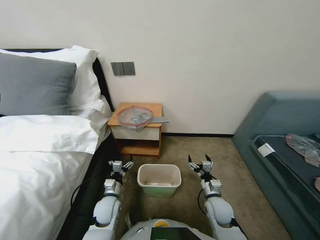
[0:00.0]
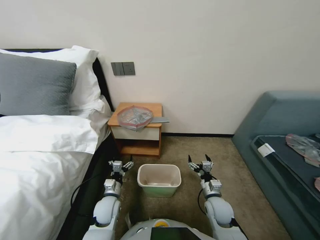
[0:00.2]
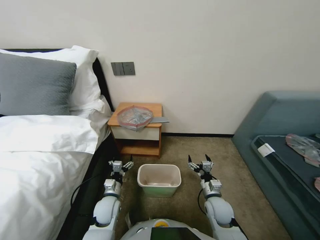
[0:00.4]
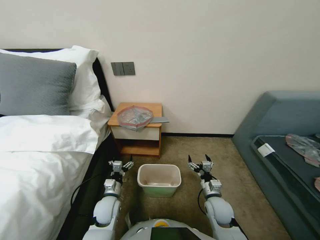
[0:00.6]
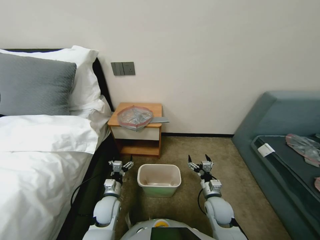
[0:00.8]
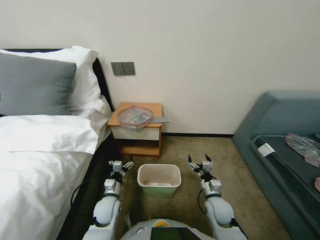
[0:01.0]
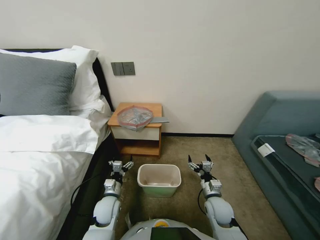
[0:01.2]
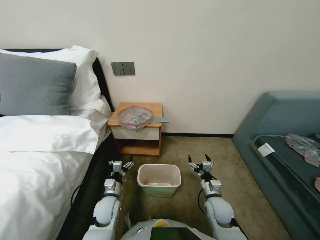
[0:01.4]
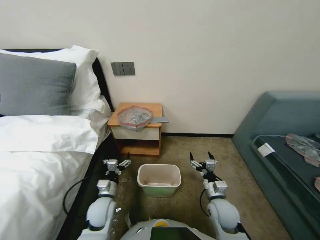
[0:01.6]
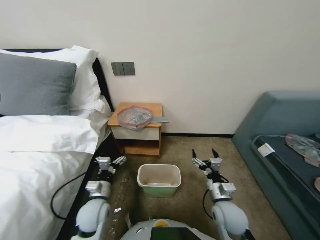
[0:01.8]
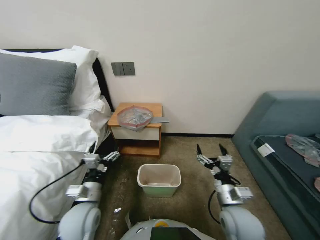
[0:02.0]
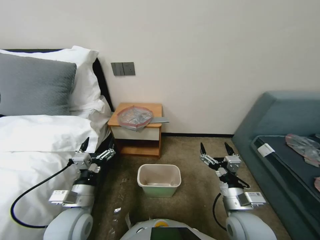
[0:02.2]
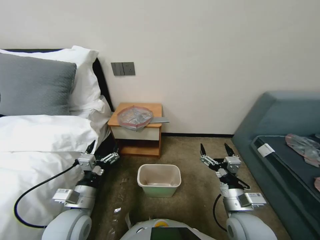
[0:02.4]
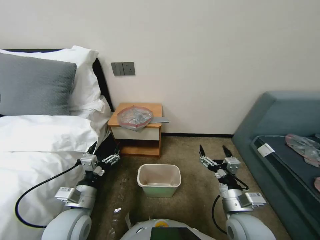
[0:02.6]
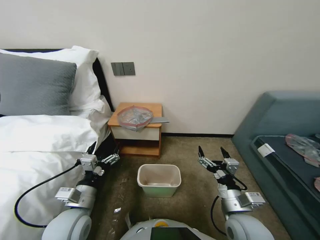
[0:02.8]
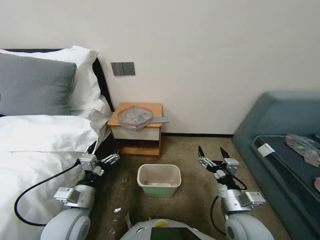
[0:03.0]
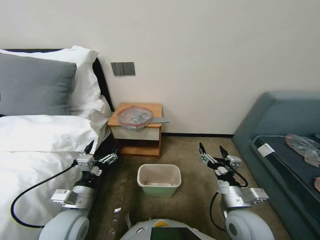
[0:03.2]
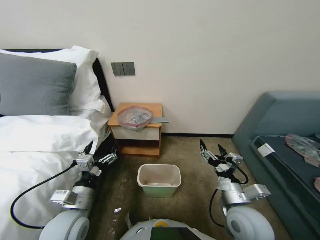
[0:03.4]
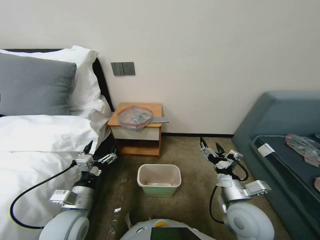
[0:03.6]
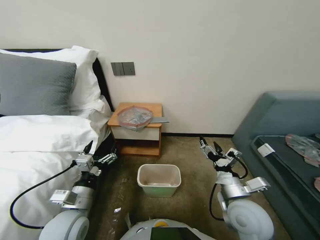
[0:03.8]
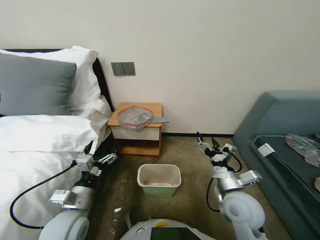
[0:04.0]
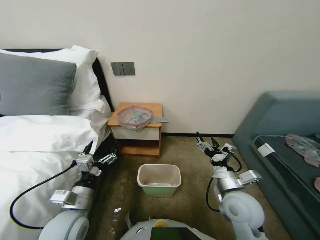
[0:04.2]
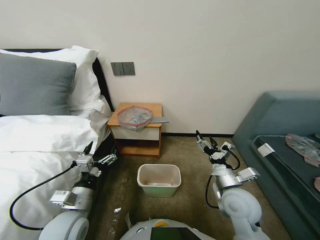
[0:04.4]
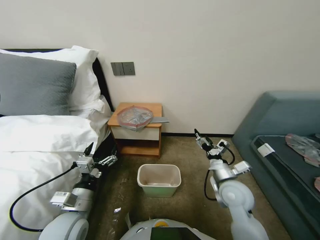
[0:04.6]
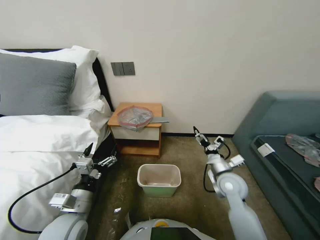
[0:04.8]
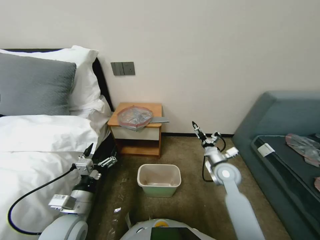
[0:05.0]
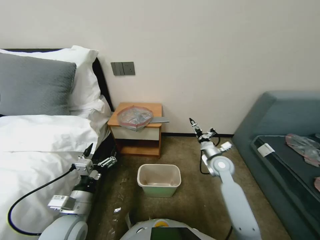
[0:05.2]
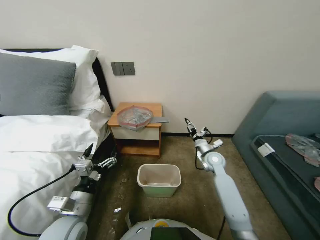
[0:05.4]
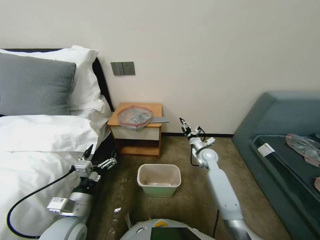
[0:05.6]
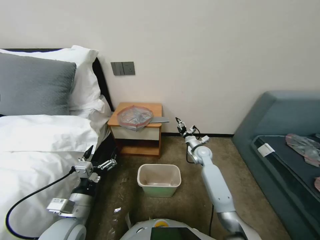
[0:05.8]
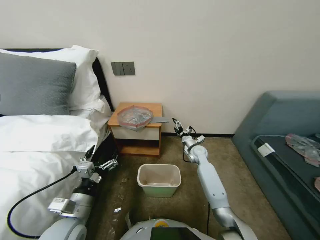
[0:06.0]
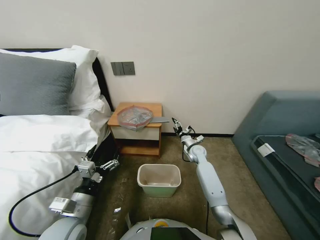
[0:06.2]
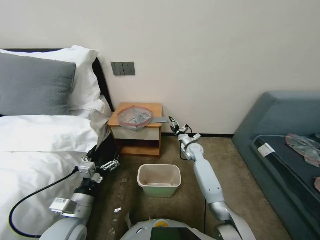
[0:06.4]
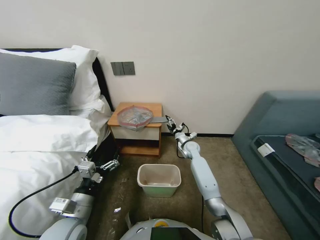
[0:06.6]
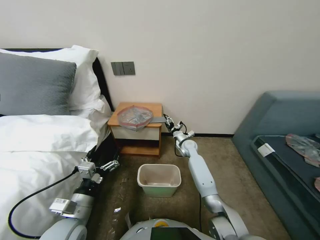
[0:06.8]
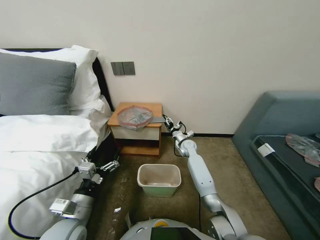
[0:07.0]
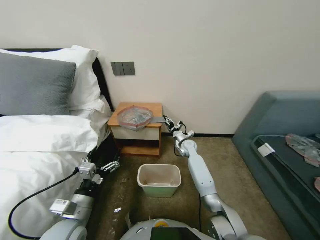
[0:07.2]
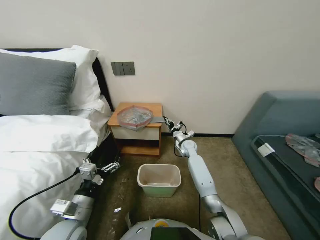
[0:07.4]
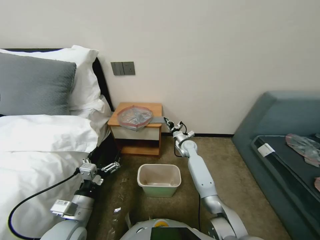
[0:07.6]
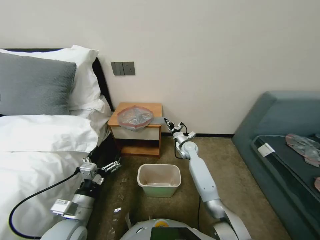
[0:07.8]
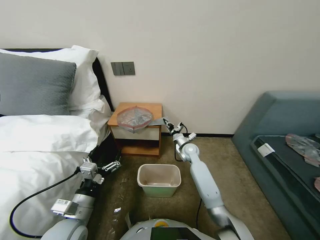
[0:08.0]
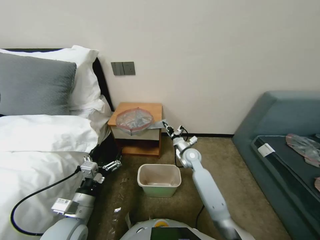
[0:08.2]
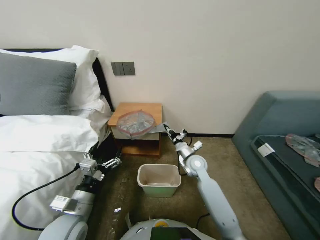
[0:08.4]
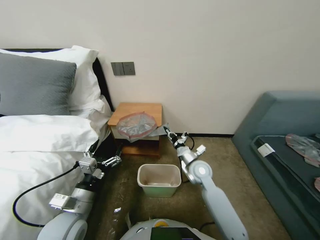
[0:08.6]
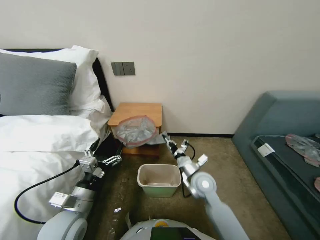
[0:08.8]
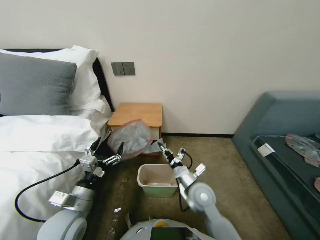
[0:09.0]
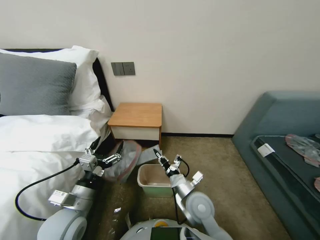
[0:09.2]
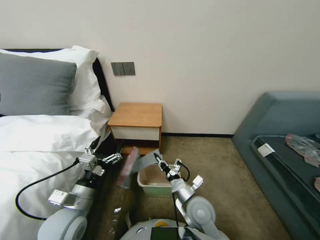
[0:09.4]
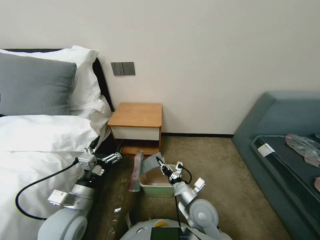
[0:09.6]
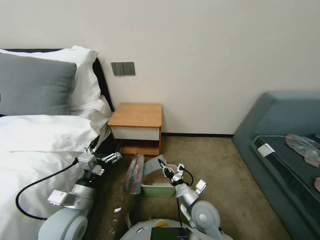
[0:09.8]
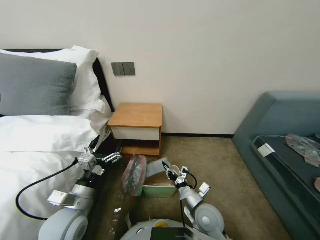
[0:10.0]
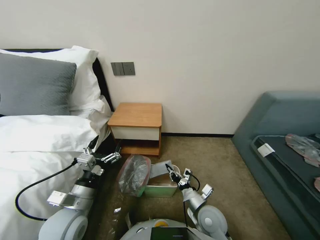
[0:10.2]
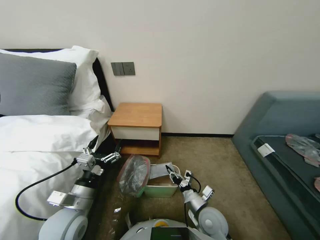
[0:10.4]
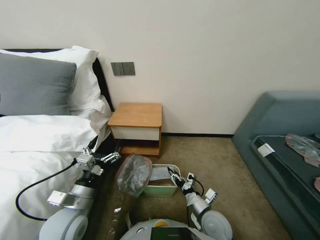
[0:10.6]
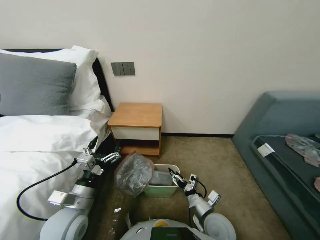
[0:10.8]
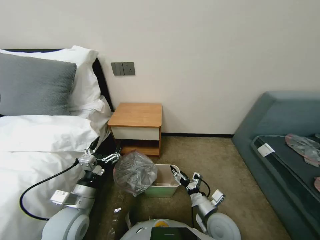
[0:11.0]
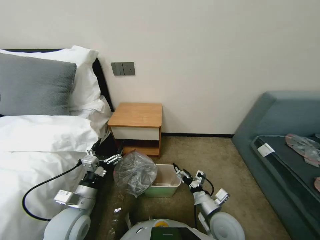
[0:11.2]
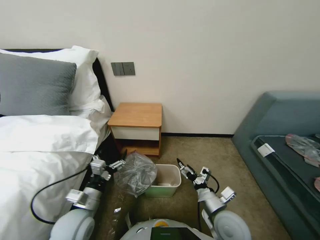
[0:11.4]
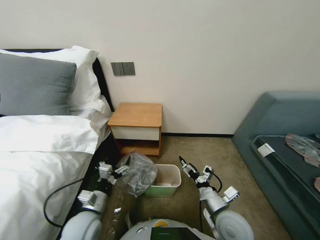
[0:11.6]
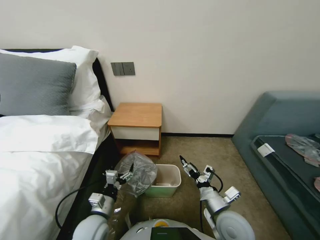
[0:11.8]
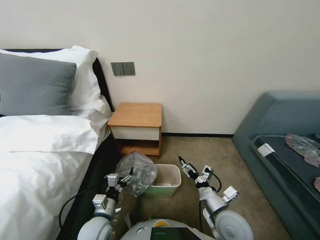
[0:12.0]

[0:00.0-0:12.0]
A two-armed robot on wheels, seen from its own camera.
Task of the whole recording: Pick up the garbage bag from the table and place it over the trash can.
0:01.6 to 0:03.0: The grippers both shift upward and backward by about 15 cm.
0:03.0 to 0:04.4: The right gripper heads forward, covering some 5 cm.
0:04.4 to 0:06.0: The right gripper shifts approximately 25 cm forward.
0:06.0 to 0:07.6: The right gripper is displaced to the left by approximately 5 cm, and closes up.
0:07.6 to 0:09.0: The right gripper heads backward, covering about 25 cm.
0:09.0 to 0:10.4: The right gripper goes about 10 cm backward and downward.
0:10.4 to 0:12.0: The right gripper travels upward by roughly 5 cm, and opens. The left gripper travels downward by roughly 10 cm.

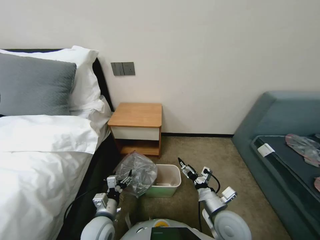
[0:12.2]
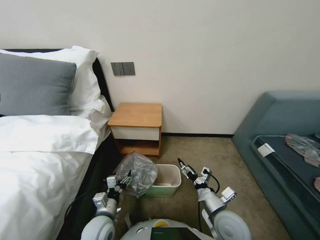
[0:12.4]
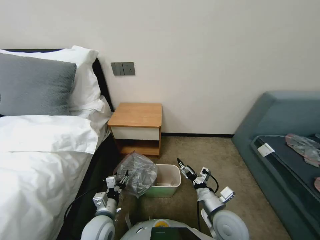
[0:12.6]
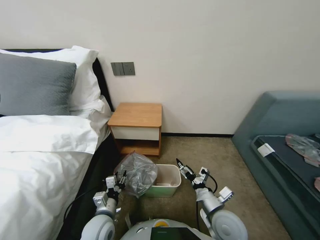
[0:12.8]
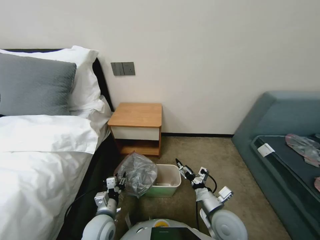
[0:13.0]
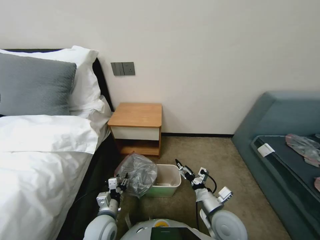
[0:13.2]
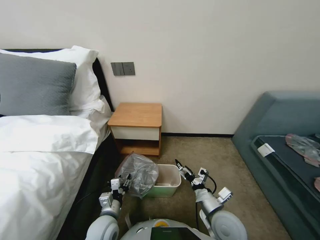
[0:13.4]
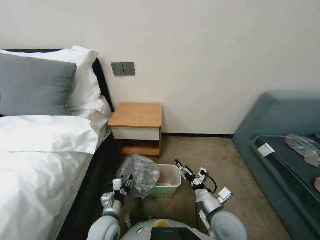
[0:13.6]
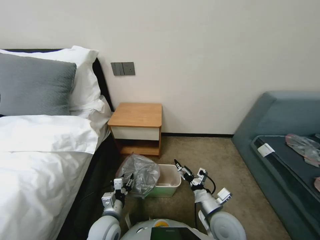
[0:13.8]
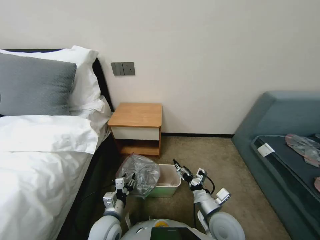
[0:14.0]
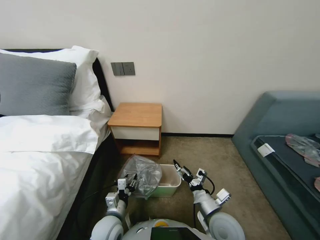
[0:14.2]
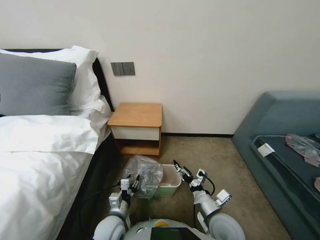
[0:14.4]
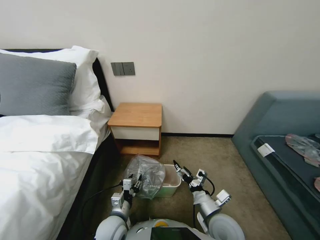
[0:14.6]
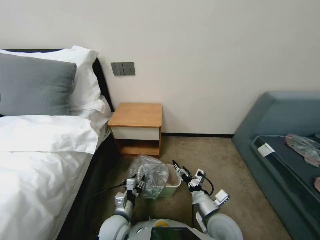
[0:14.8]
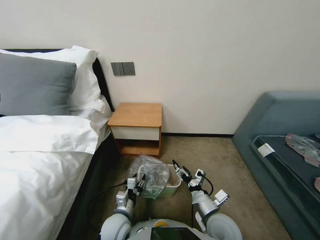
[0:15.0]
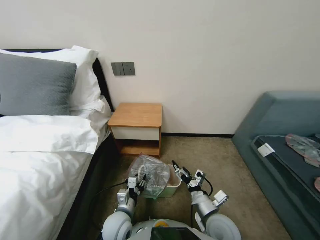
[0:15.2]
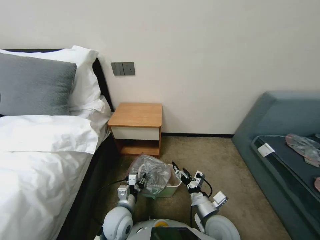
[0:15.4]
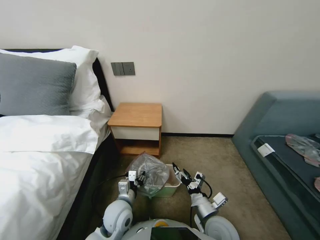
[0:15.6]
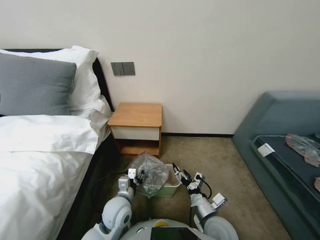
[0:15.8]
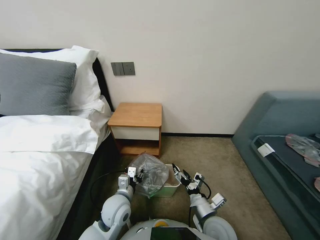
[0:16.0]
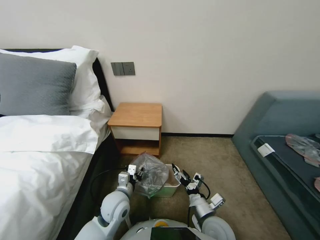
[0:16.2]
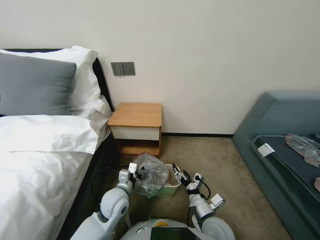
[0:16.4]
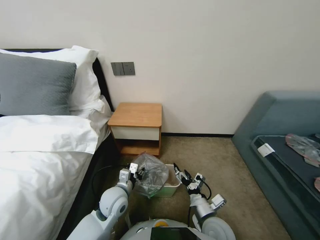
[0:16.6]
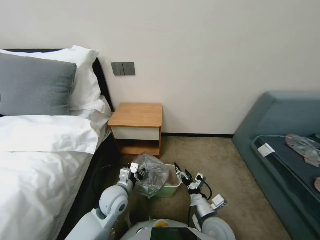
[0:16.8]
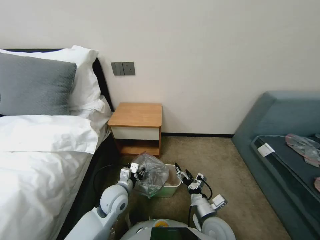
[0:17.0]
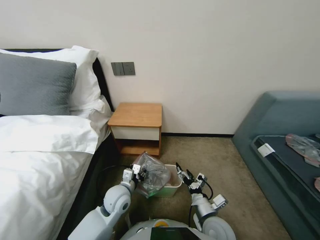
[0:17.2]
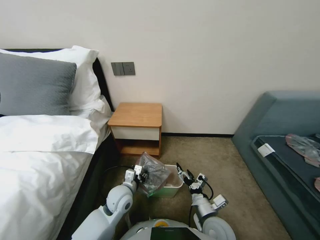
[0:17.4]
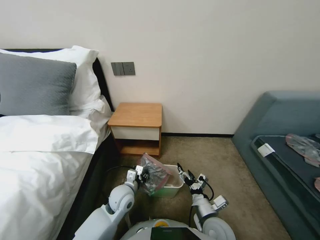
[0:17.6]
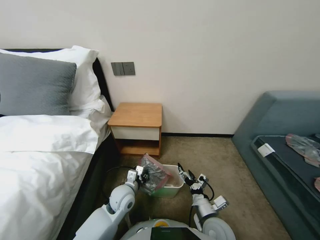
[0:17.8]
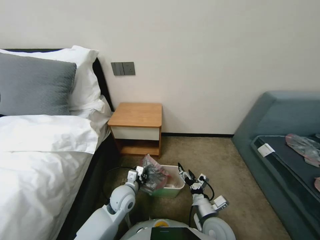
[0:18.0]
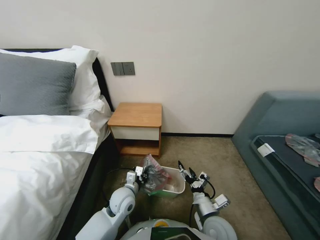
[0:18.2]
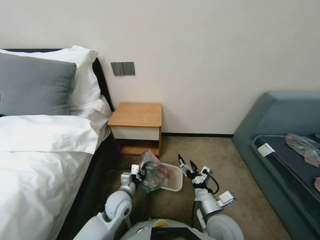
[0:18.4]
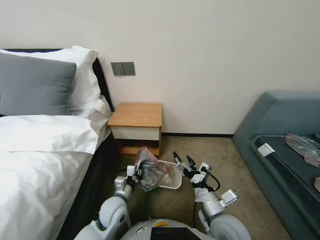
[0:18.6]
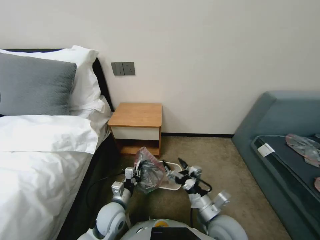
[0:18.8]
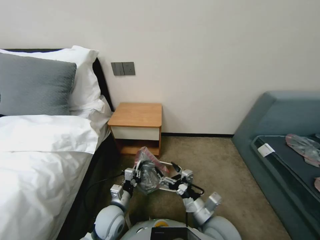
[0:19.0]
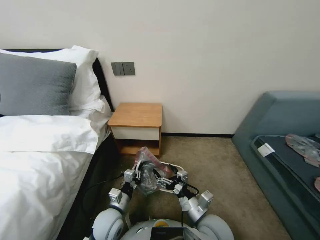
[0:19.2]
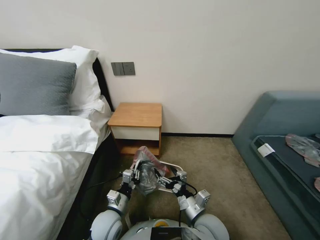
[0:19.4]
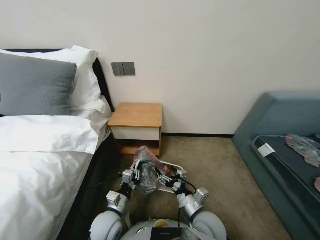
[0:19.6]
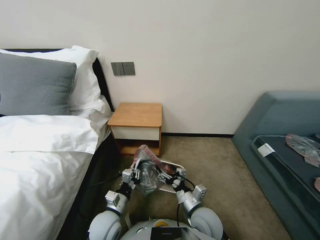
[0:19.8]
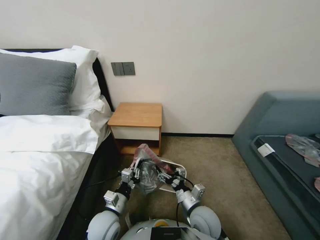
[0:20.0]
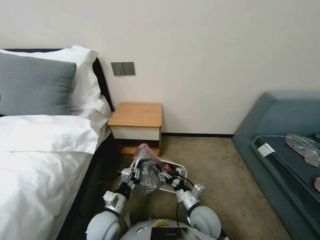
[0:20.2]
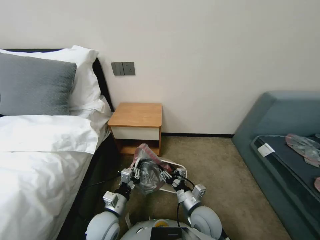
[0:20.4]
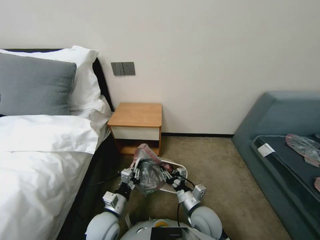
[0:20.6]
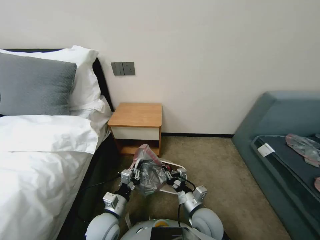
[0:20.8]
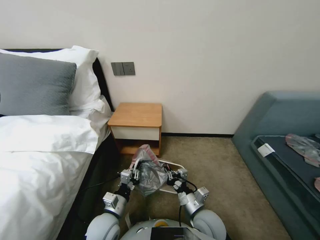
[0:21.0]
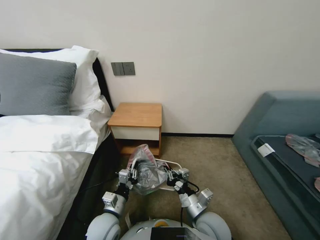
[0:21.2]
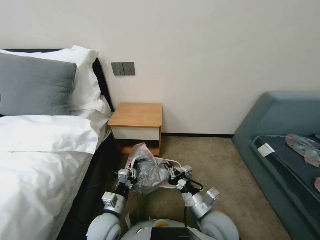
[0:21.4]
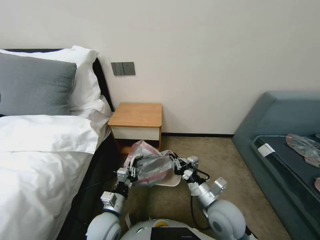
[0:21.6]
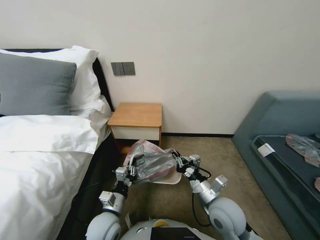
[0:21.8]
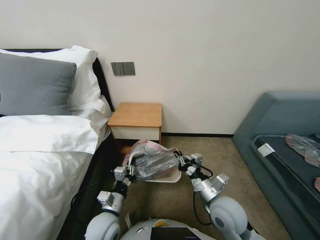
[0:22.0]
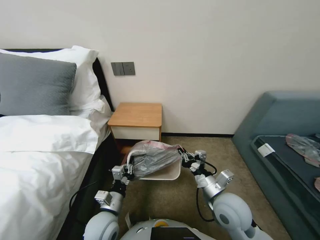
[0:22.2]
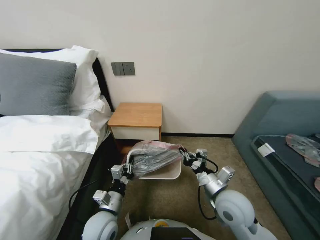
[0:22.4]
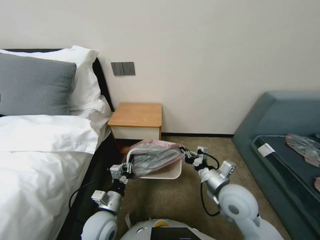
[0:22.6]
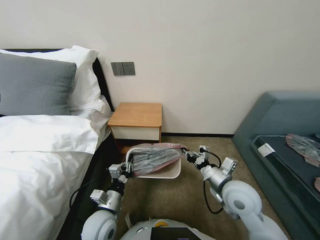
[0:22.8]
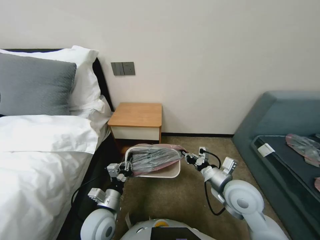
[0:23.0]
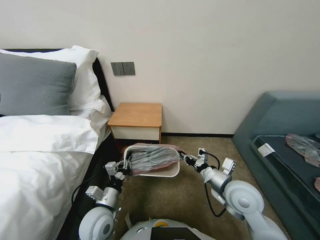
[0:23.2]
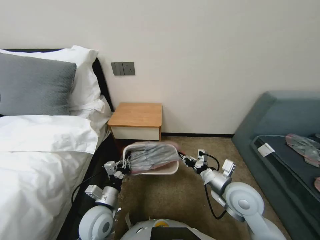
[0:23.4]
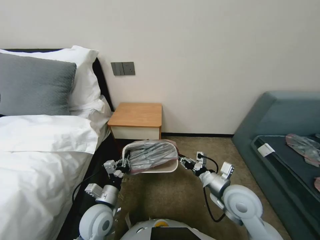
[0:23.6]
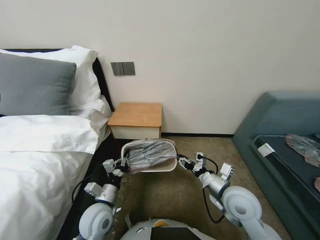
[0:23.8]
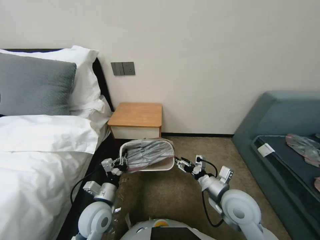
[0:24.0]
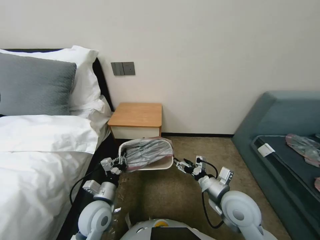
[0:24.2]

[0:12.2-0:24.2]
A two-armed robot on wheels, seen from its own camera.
Task of the whole recording: Pick up the garbage bag from the table and place it over the trash can.
0:12.2 to 0:13.8: The left gripper closes up.
0:13.8 to 0:15.2: The grippers move only a little.
0:15.2 to 0:16.6: The left gripper travels forward and upward by some 10 cm.
0:16.6 to 0:18.2: The left gripper closes up.
0:18.2 to 0:19.8: The right gripper reaches some 10 cm upward, then returns. The left gripper shifts about 10 cm backward.
0:19.8 to 0:21.2: The right gripper closes.
0:21.2 to 0:22.6: The right gripper shifts about 10 cm upward, to the right and forward.
0:22.6 to 0:24.2: The right gripper opens up.
